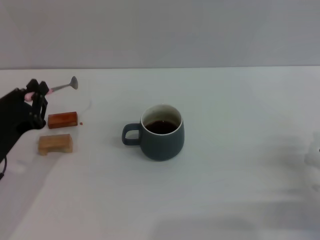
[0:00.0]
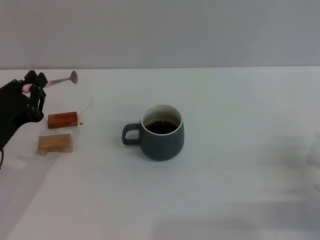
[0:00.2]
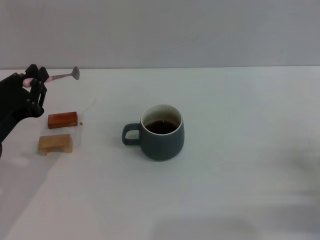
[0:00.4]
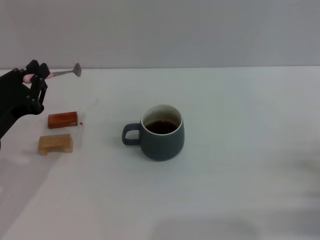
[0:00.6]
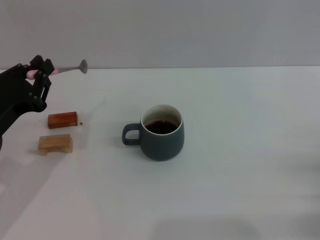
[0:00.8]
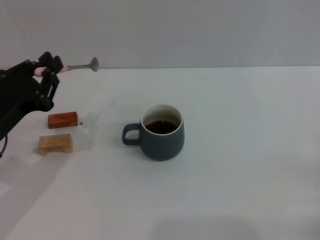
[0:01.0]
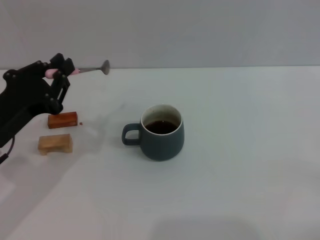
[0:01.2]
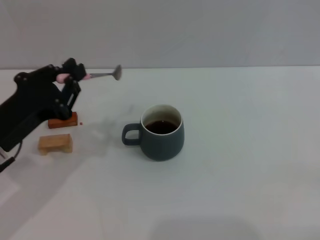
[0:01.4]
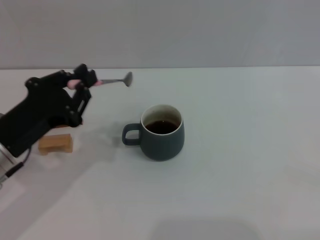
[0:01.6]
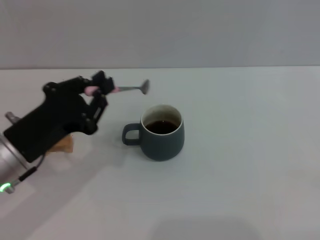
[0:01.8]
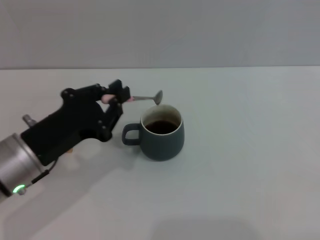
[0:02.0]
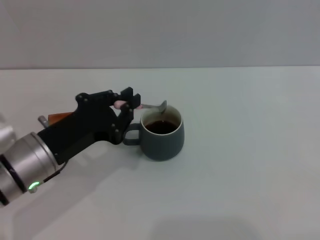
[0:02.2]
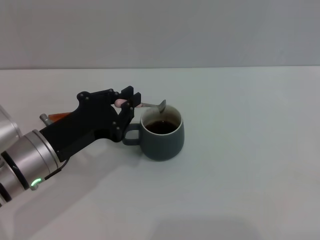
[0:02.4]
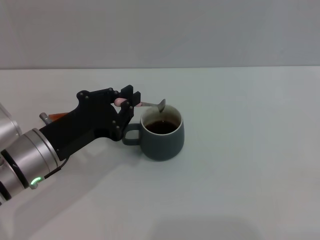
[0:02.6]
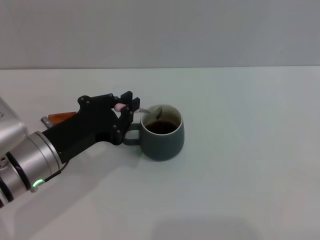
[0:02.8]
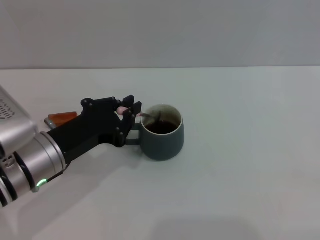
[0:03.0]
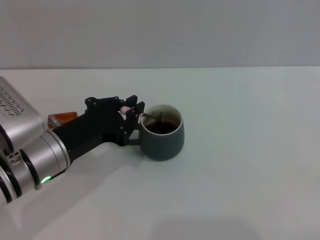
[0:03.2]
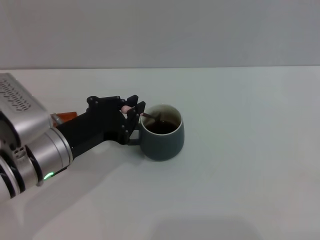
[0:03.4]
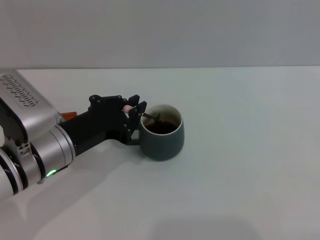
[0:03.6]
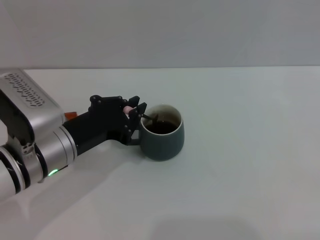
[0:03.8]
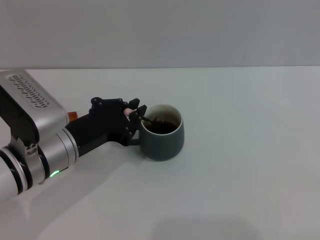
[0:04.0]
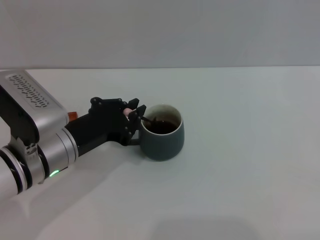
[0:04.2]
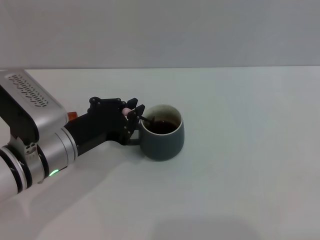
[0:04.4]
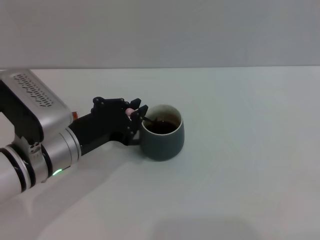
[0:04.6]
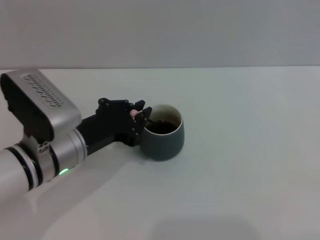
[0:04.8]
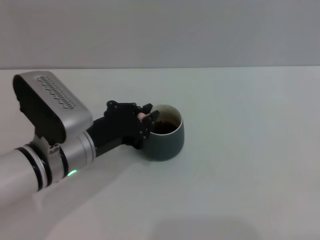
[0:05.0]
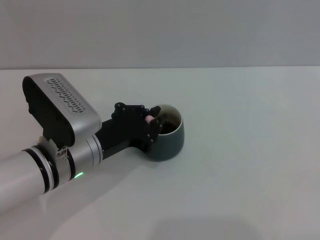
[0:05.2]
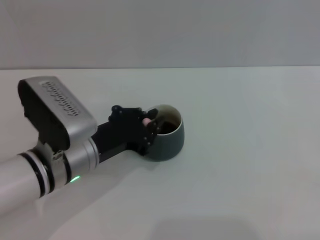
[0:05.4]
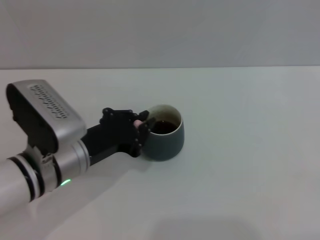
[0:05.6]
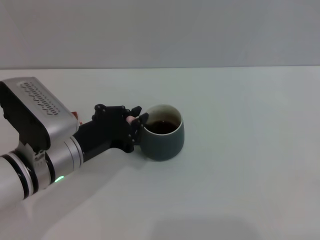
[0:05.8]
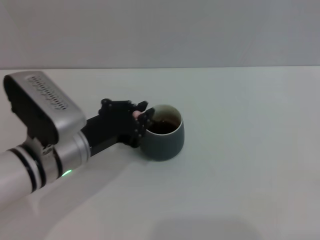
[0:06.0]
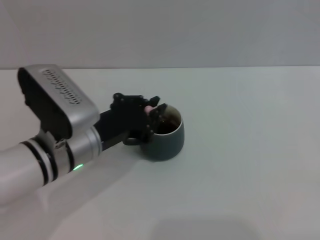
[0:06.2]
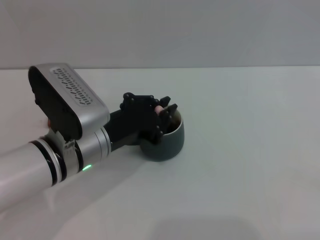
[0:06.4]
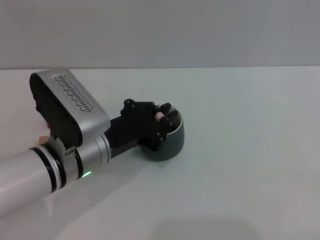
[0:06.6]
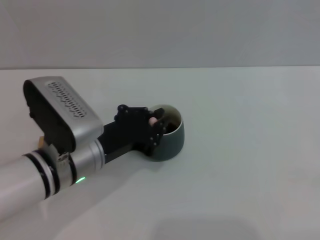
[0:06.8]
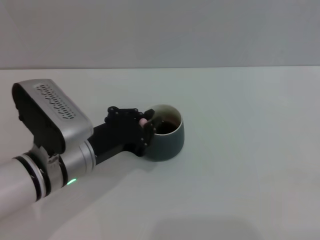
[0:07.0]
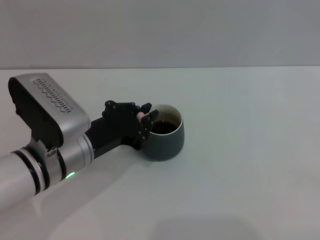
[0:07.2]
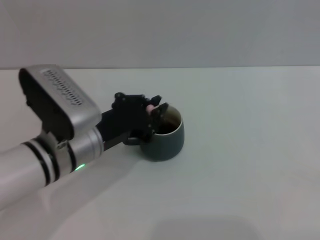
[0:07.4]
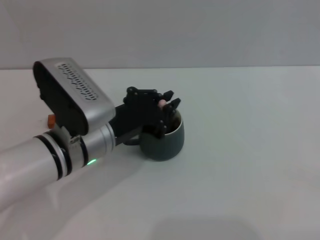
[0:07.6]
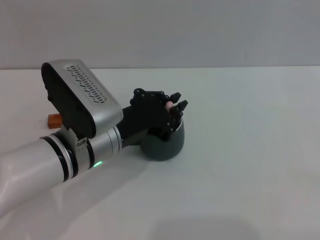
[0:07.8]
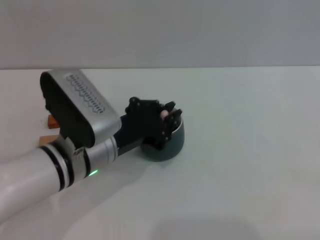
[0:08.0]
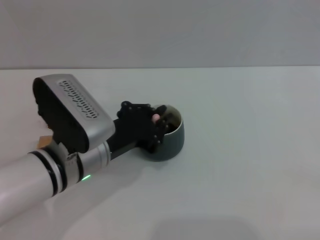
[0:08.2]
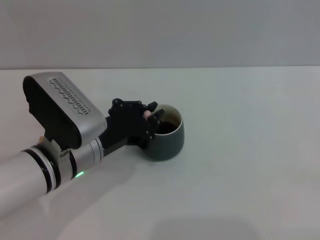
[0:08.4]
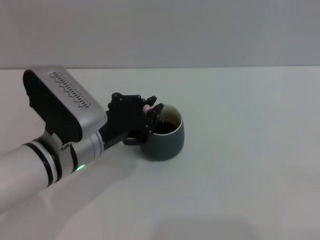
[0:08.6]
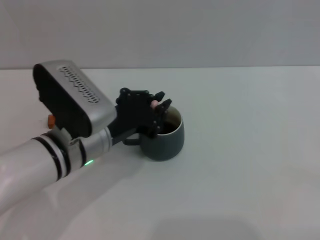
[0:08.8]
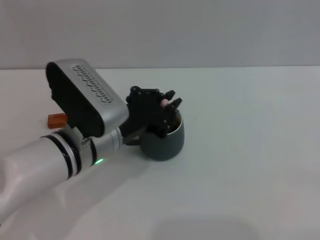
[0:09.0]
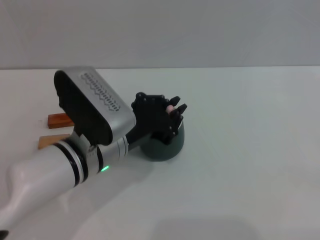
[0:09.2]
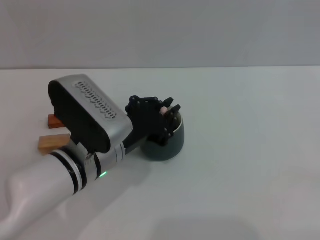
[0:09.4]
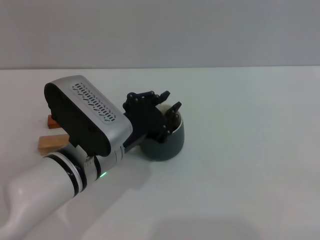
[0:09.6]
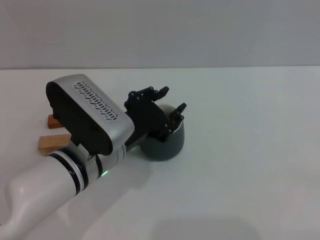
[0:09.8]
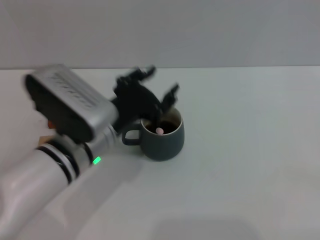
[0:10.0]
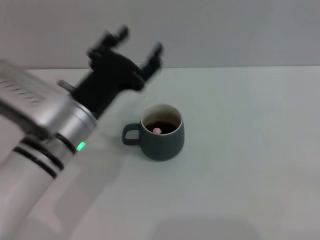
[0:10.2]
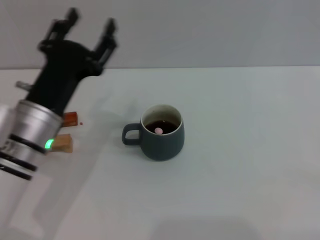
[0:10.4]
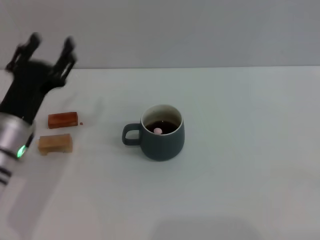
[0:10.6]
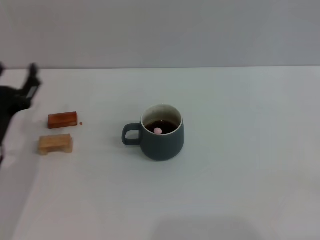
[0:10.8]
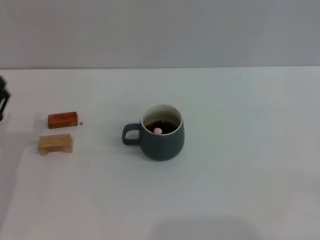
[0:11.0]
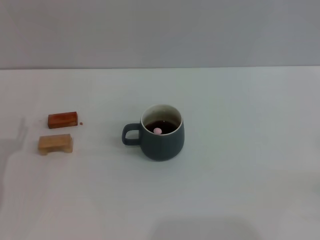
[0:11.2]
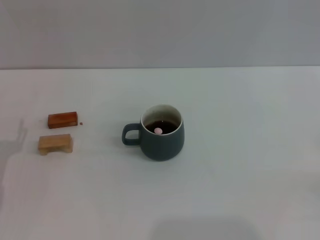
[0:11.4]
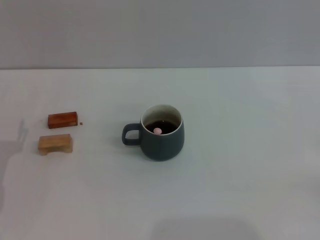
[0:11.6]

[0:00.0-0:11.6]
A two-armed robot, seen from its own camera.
Task of the whole recording: Move the grey cup to the center, lift the pink spoon, stir it three times in the cup, and put the spoon into the cup.
Step, 0:00.0 to 0:10.4: Stir the coffee in the cup with the left gripper.
0:00.0 to 0:01.4: The right gripper goes about 10 cm to the right; the left gripper moves upward, roughly 5 cm.
0:01.4 to 0:02.8: The left gripper moves to the right, roughly 5 cm.
0:02.8 to 0:05.8: There are only small adjustments of the grippers.
0:05.8 to 0:08.8: The grippers stay close to where they were, moving slightly.
0:08.8 to 0:10.2: The left gripper opens its fingers.
0:10.2 to 0:11.6: The left gripper moves to the left and downward, about 20 cm.

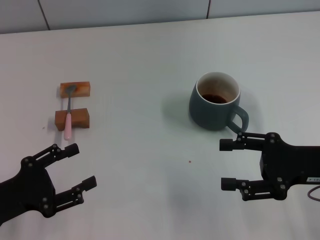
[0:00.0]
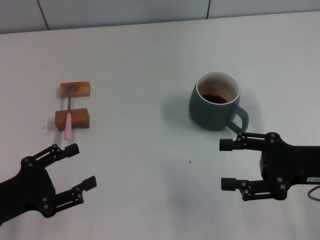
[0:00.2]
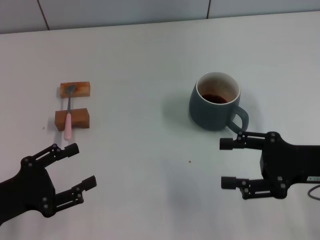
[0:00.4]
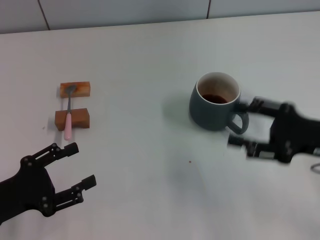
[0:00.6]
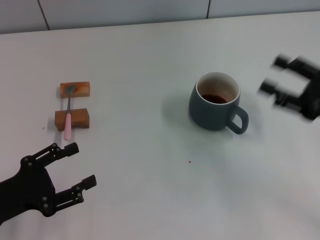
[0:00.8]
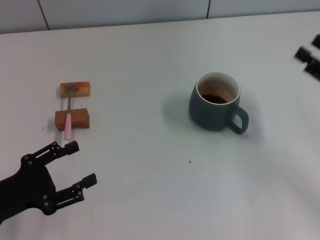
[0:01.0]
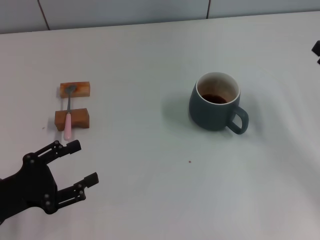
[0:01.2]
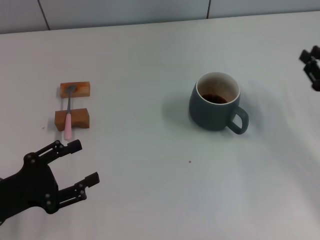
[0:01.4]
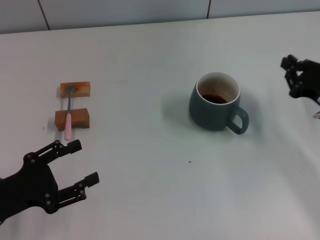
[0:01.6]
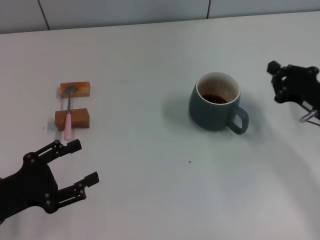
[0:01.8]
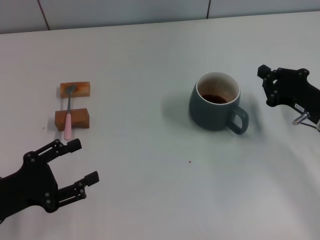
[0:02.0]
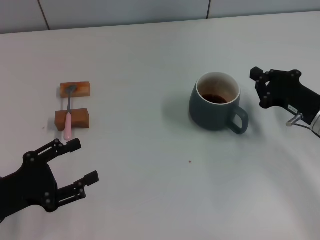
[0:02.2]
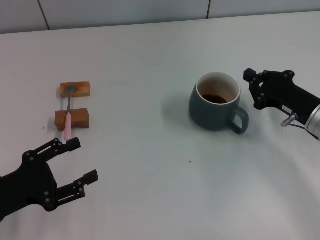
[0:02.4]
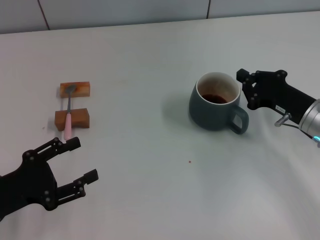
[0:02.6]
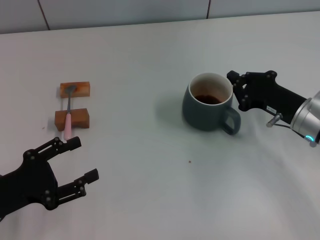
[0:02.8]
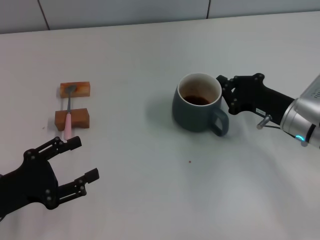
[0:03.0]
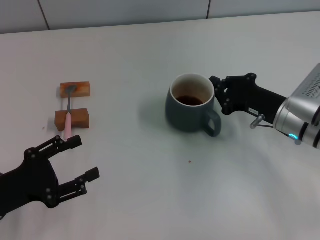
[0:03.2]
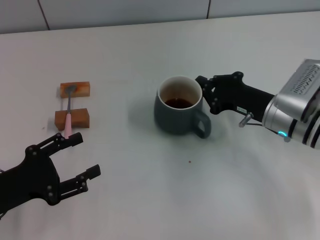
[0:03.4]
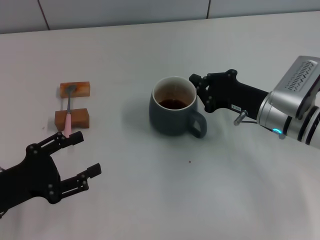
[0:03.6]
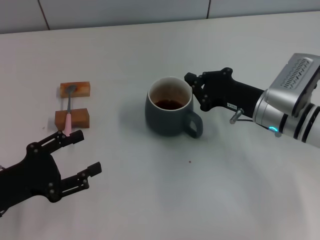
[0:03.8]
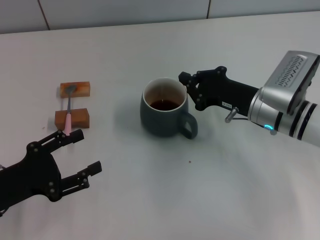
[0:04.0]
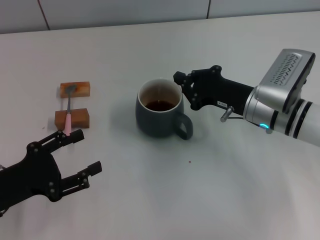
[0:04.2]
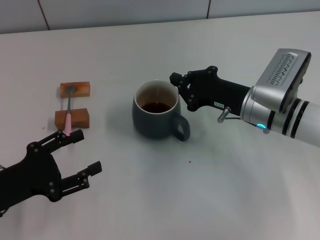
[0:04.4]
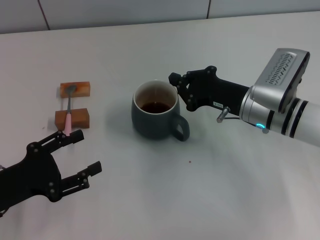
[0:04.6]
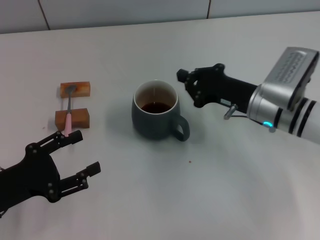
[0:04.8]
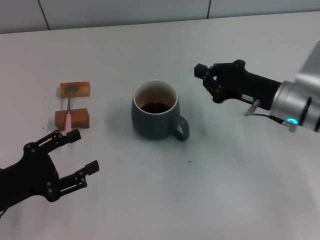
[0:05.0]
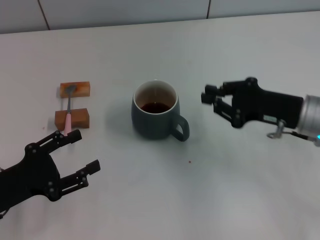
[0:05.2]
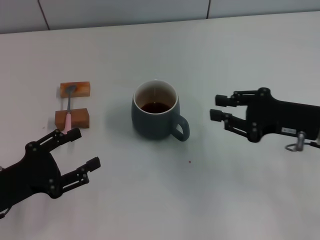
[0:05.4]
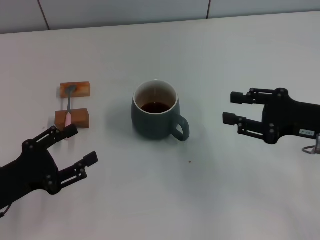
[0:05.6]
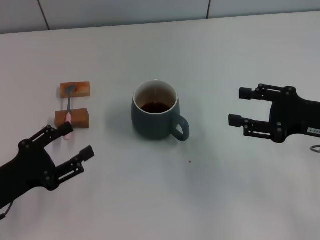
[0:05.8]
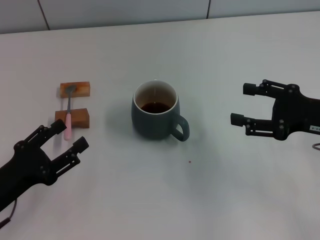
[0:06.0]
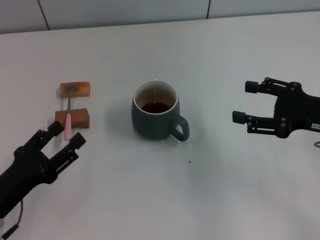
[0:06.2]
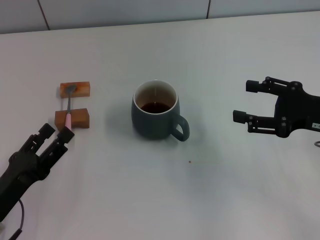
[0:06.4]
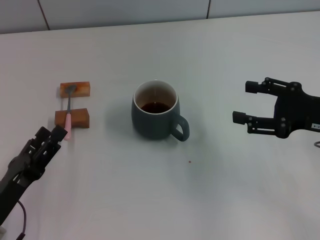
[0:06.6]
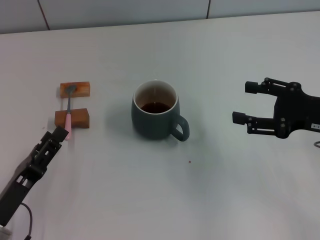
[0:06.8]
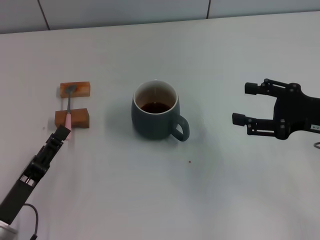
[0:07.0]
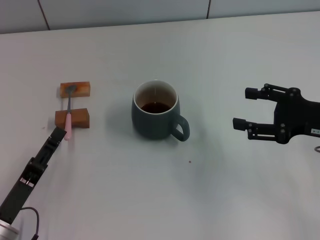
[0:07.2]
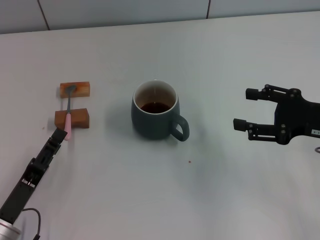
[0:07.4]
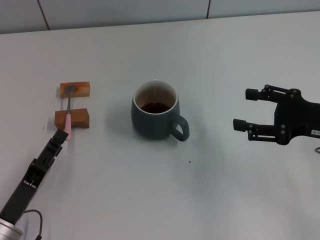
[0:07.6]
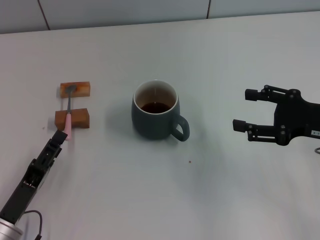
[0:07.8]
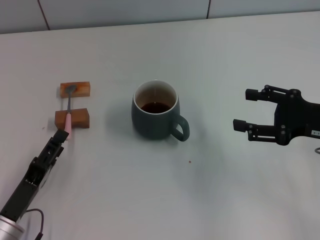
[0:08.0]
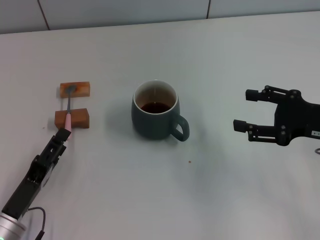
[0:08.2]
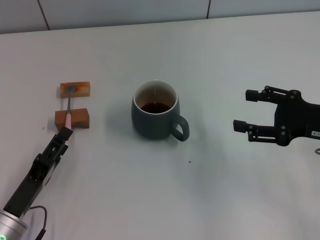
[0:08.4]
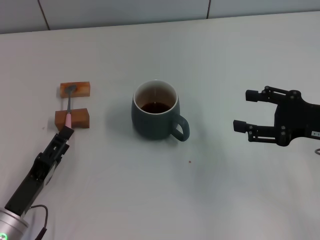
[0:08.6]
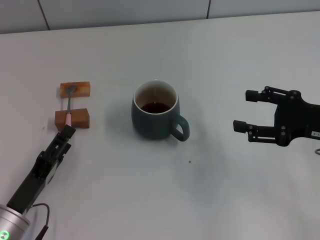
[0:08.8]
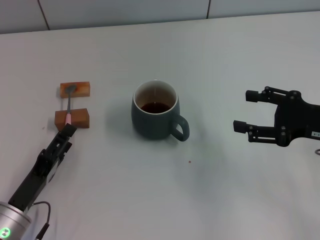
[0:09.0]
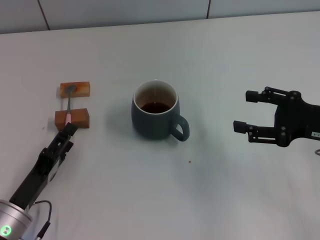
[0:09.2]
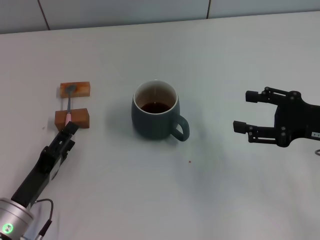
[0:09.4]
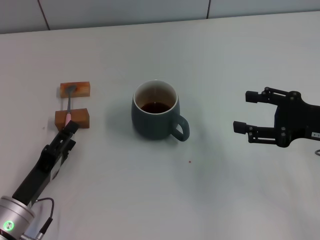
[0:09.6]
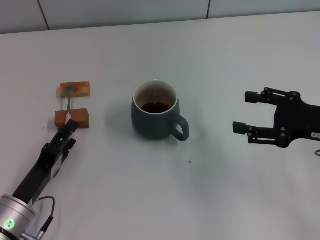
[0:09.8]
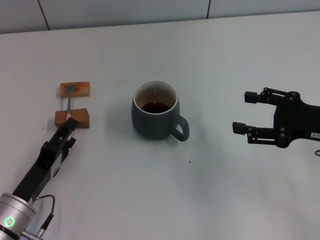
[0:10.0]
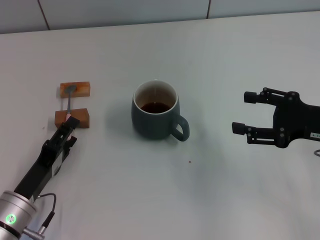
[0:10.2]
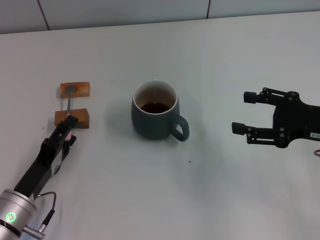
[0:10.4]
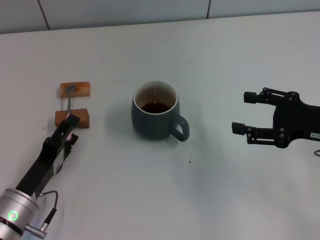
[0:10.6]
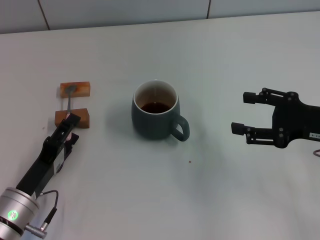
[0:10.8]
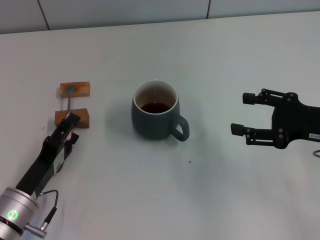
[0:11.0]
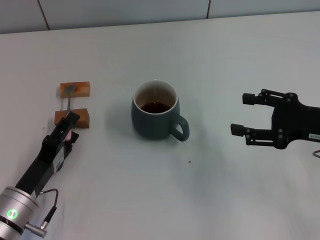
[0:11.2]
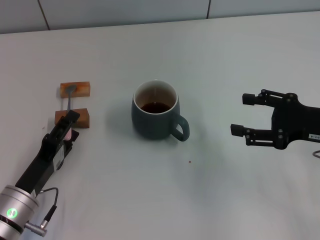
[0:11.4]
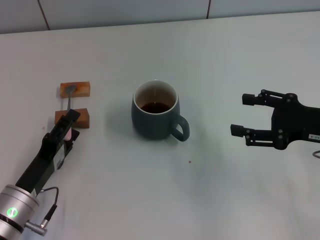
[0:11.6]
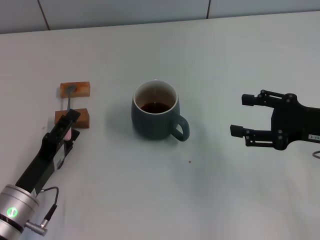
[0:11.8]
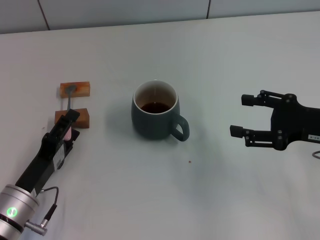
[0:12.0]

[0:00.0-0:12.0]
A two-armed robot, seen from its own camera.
Task of the whole recording: Move the grey cup to the center, lift the pink spoon, stir it three times in the cup, and put the spoon into the cup.
Step, 0:00.0 to 0:04.8: Move the cup with coffee to the center of view with the right gripper.
0:00.0 to 0:01.6: The right gripper is displaced forward by about 5 cm, and closes.
0:01.6 to 0:03.0: The right gripper is displaced to the left by some 10 cm.
0:03.0 to 0:04.4: The right gripper moves to the left, about 5 cm.
0:04.4 to 0:06.0: The right gripper is displaced to the right, backward and upward by about 15 cm, and opens.
0:06.0 to 0:07.6: The left gripper changes place by about 5 cm.
0:07.6 to 0:10.4: The grippers move only a little.
0:10.4 to 0:12.0: The two grippers keep their place.
